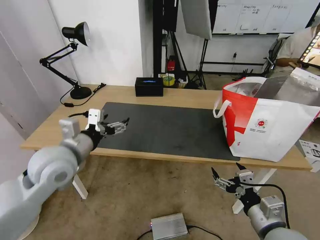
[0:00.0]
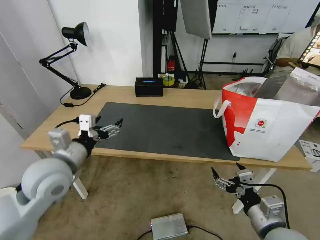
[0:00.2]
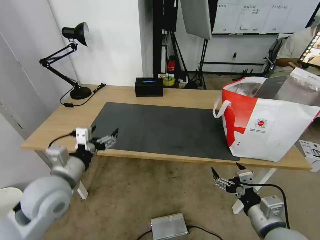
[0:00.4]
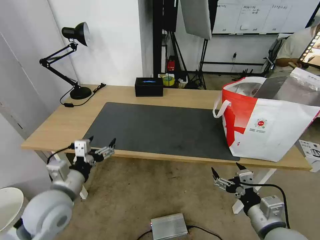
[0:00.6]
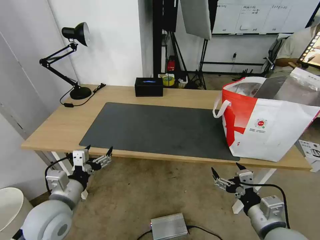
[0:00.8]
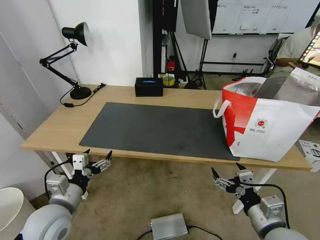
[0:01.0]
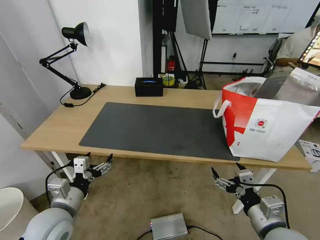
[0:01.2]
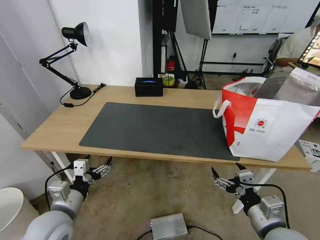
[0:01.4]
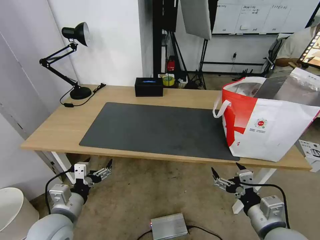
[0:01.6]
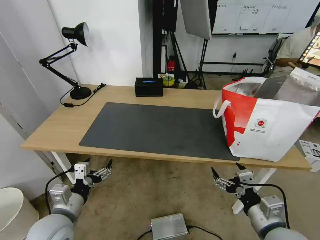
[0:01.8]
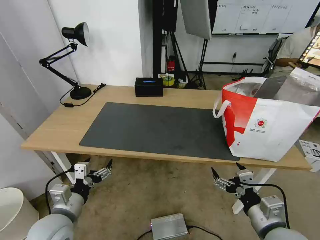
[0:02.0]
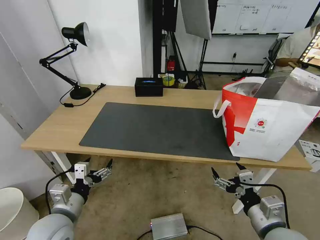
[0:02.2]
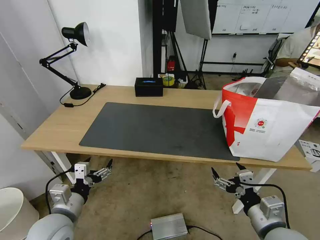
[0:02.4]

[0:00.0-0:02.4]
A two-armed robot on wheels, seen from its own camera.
Task of the whole recording: Pick up the trash from the table and place it into the takeout bag.
0:00.0 to 0:01.2: The left gripper is displaced downward and backward by approximately 15 cm.
0:01.2 to 0:02.4: The grippers stay close to where they were, moving slightly.
